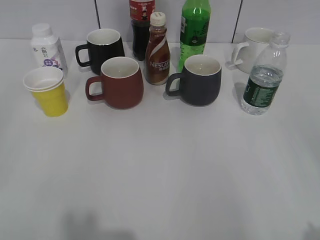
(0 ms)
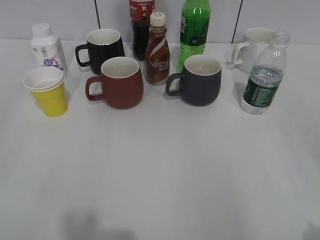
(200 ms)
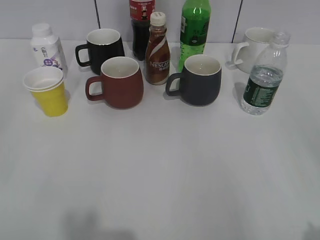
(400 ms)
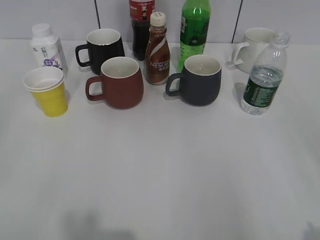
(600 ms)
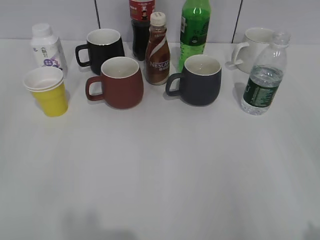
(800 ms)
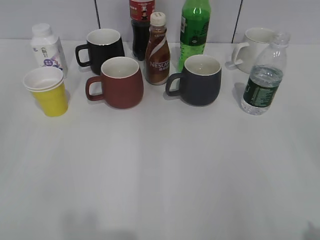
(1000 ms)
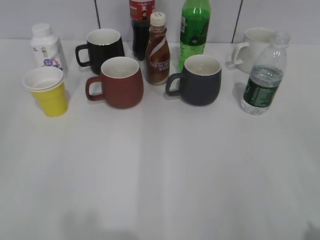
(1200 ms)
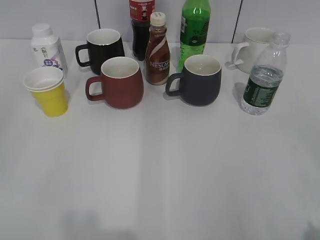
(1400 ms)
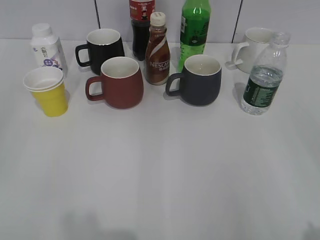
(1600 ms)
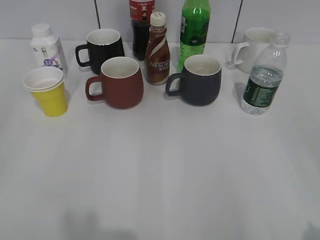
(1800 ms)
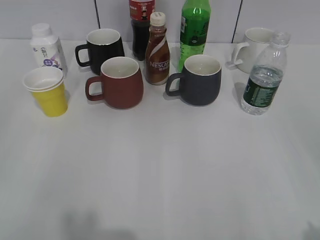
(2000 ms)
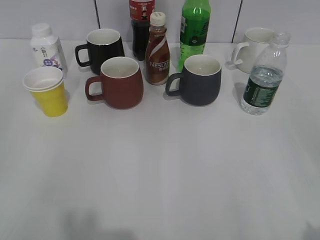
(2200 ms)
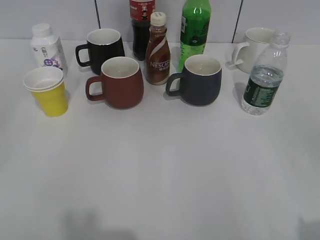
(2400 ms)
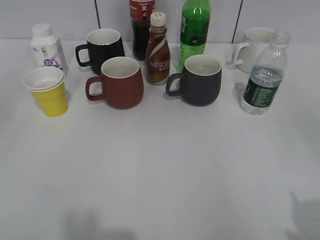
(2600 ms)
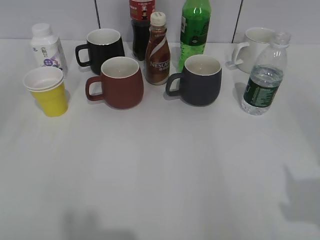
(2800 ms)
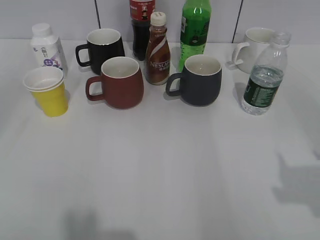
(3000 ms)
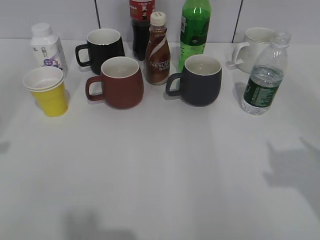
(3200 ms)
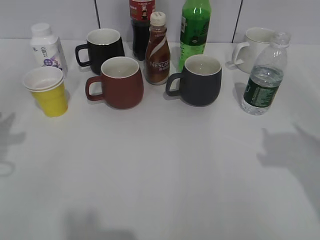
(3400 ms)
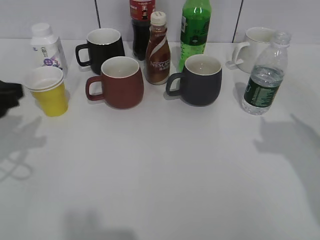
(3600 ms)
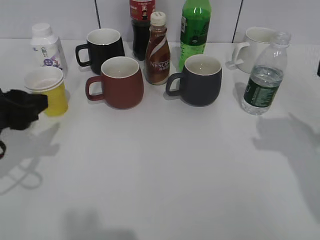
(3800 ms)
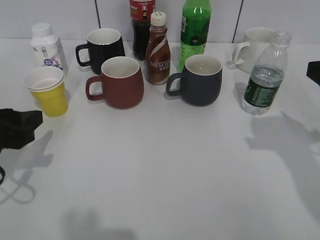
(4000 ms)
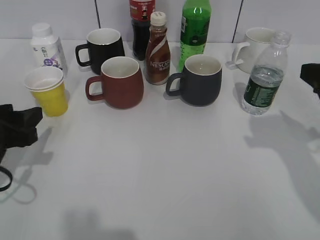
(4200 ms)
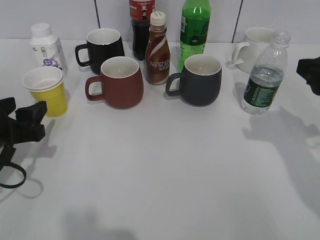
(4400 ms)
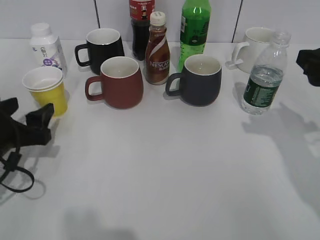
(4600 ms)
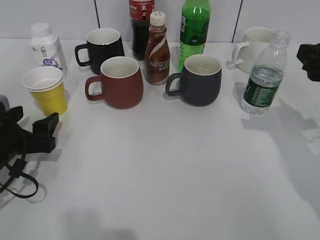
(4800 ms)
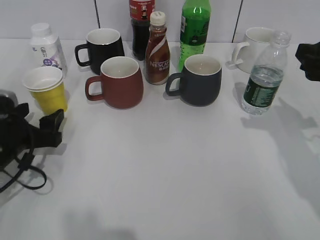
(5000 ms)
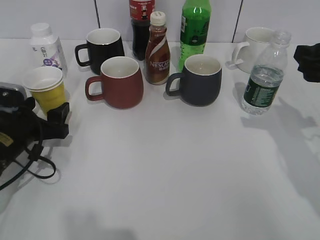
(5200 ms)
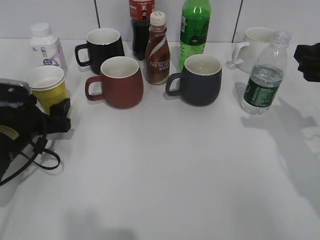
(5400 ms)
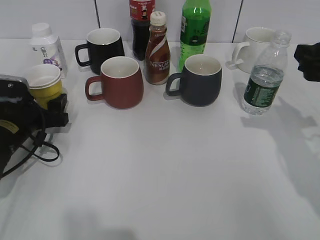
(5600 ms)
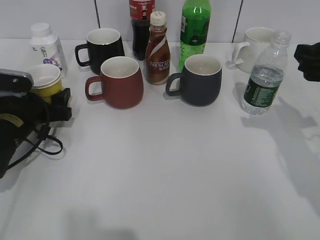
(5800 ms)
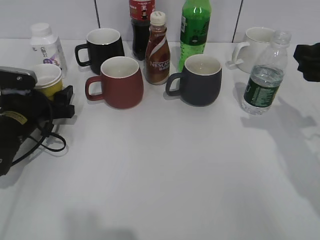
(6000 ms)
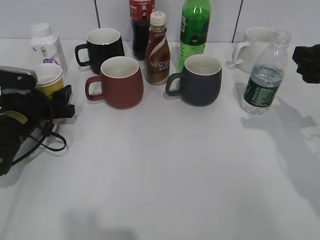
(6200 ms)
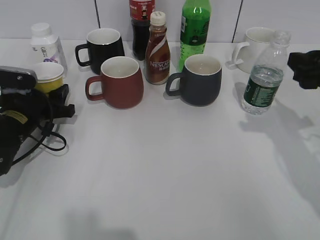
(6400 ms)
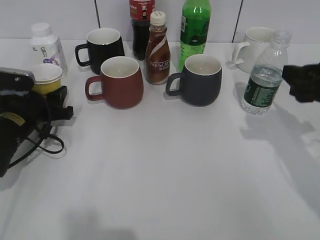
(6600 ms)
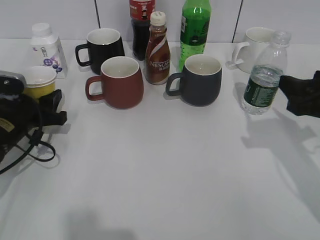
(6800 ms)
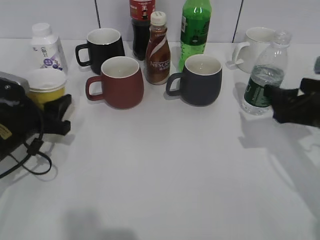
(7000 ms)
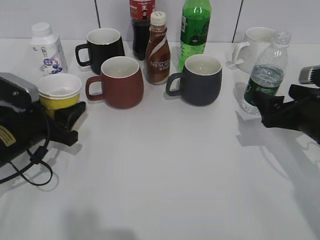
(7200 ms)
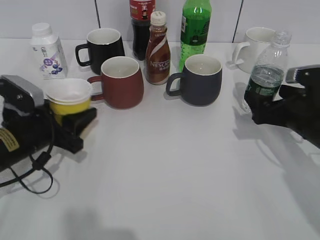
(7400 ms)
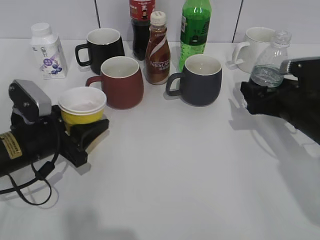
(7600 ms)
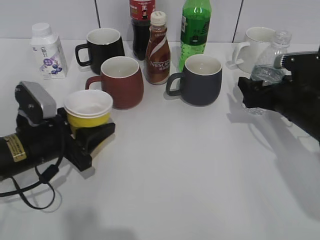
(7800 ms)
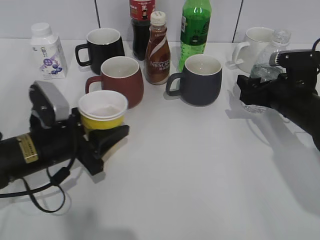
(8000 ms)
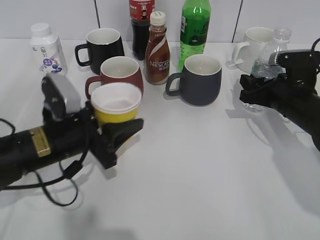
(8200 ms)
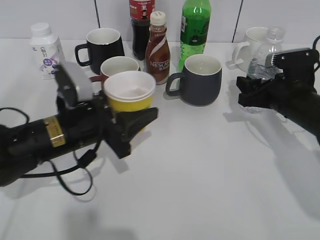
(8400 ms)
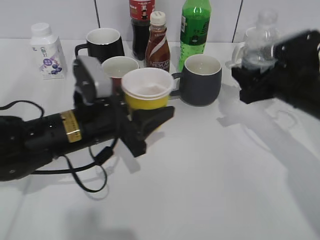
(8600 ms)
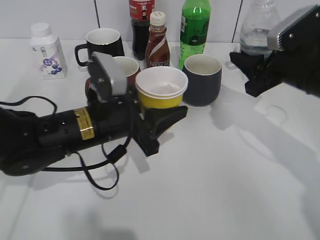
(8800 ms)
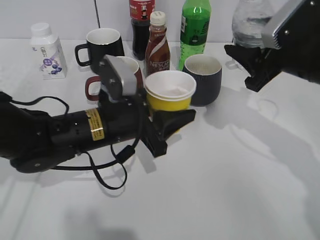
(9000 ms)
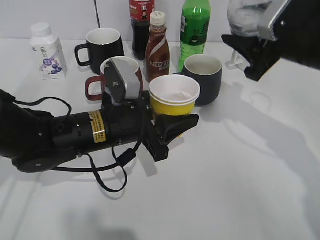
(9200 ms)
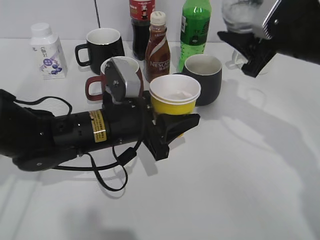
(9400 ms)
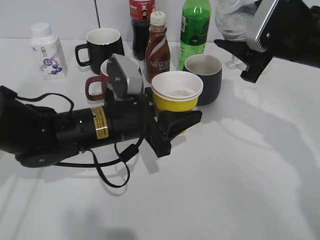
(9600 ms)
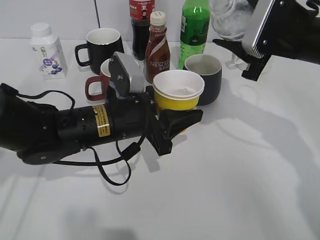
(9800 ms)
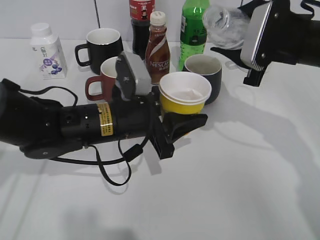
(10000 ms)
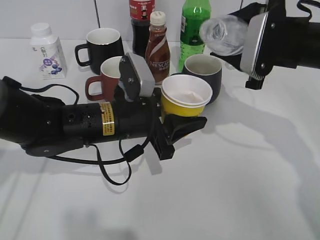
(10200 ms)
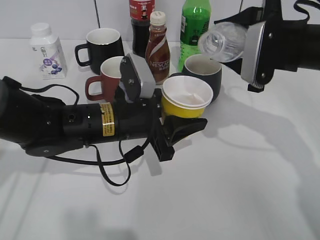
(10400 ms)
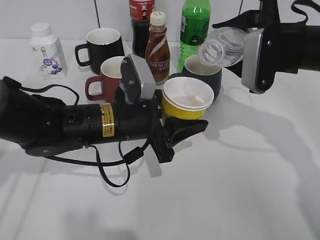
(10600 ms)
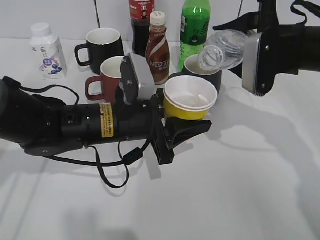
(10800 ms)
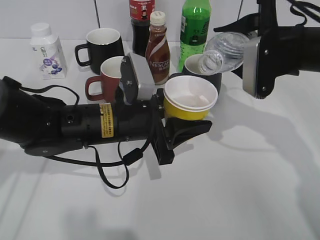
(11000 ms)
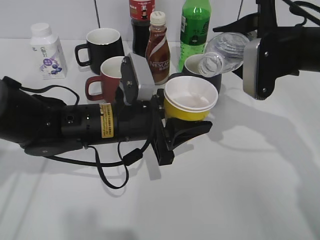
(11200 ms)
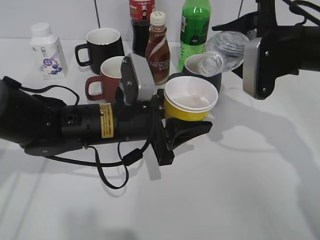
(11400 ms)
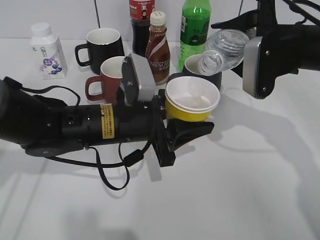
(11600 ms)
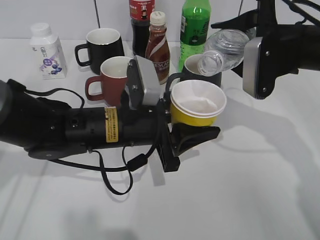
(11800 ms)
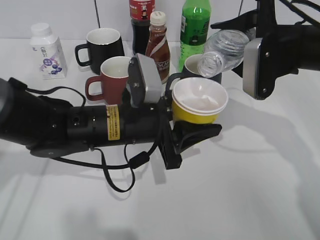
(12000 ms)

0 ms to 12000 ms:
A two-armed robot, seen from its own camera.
Step, 2200 ms to 6000 ms: Grasp the yellow paper cup with left gripper.
Step, 6200 ms to 8000 ms: Grasp the bottle with water with right gripper.
1600 ms to 3000 ms: Both grippers move forward, about 10 cm.
3000 ms to 4400 ms: The right gripper shifts some 15 cm forward and downward. The left gripper shifts about 20 cm downward and forward, and opens its fingers.
4400 ms to 6000 ms: The left gripper heads forward and downward, covering some 10 cm.
6000 ms to 7600 ms: The left gripper is displaced backward by about 5 cm, and closes its fingers, while the right gripper is displaced downward by some 10 cm, and opens.
7600 ms to 9000 ms: The left gripper is displaced to the right by some 15 cm; the right gripper shifts about 10 cm upward, and closes its fingers.
10400 ms to 12000 ms: The grippers move only a little.

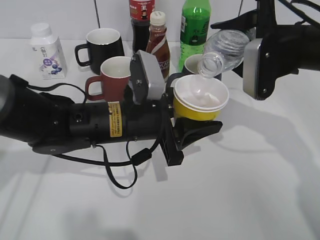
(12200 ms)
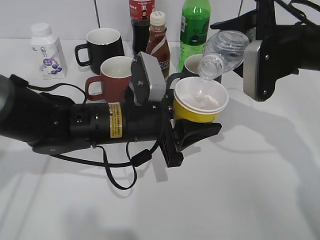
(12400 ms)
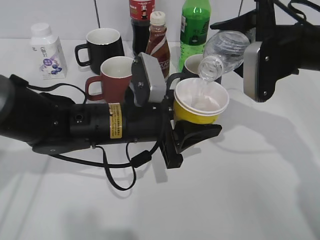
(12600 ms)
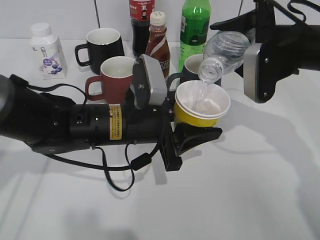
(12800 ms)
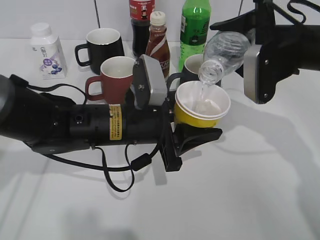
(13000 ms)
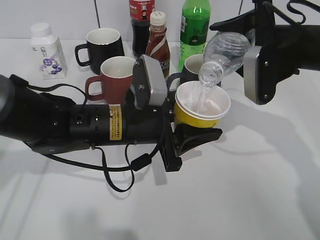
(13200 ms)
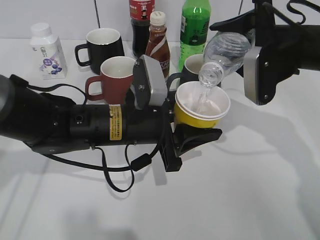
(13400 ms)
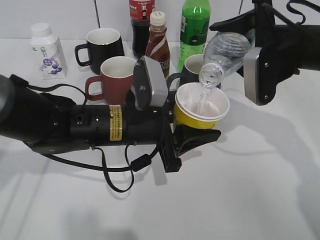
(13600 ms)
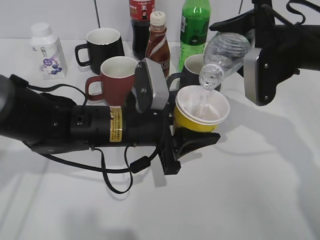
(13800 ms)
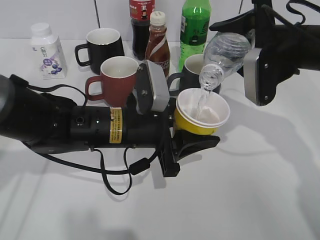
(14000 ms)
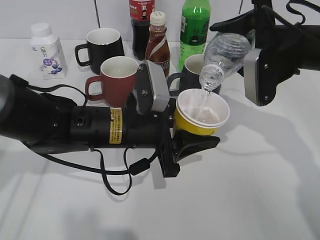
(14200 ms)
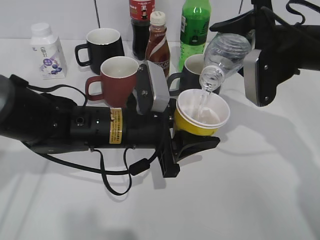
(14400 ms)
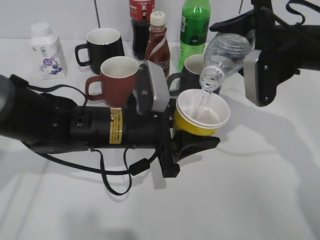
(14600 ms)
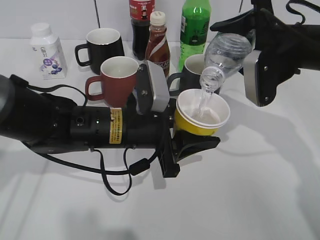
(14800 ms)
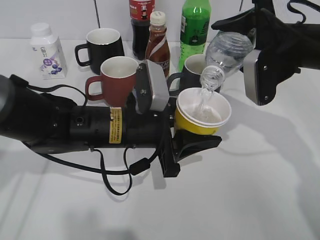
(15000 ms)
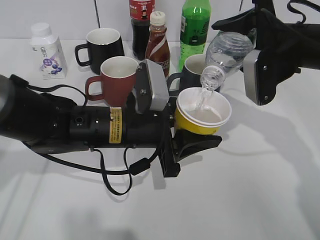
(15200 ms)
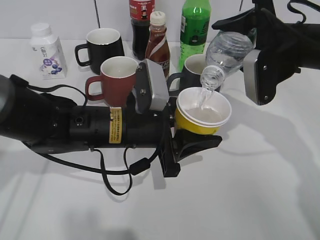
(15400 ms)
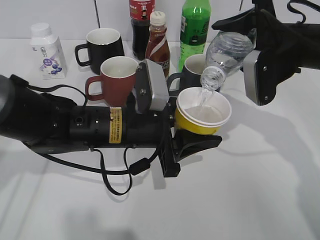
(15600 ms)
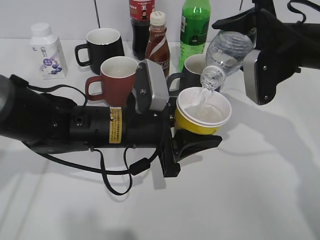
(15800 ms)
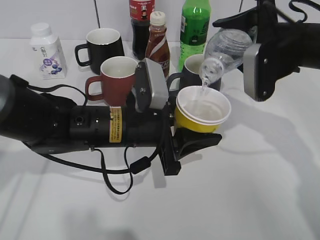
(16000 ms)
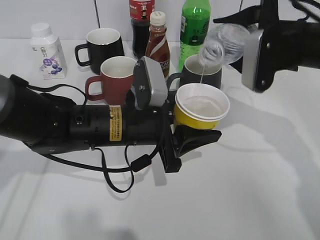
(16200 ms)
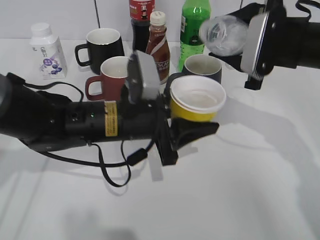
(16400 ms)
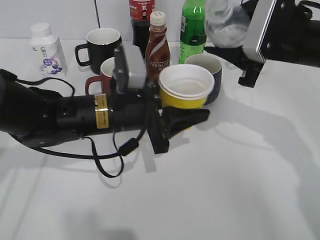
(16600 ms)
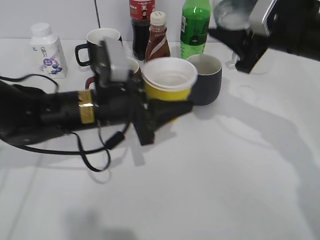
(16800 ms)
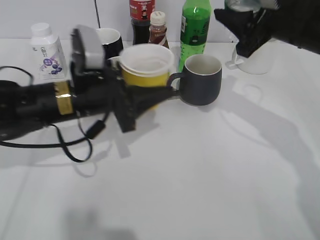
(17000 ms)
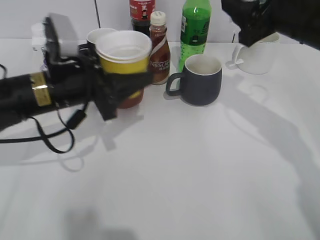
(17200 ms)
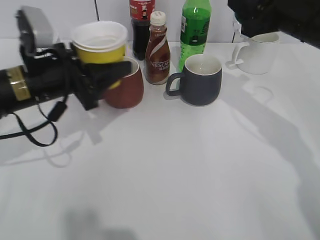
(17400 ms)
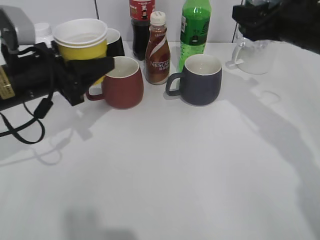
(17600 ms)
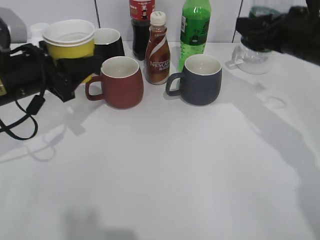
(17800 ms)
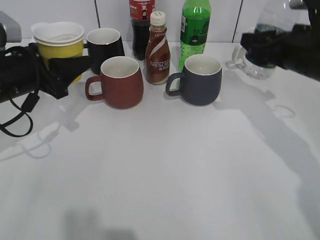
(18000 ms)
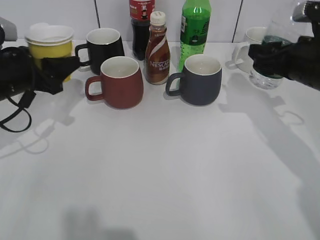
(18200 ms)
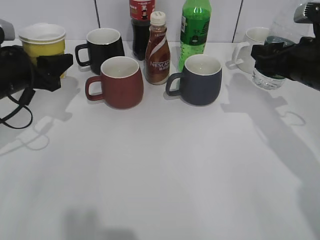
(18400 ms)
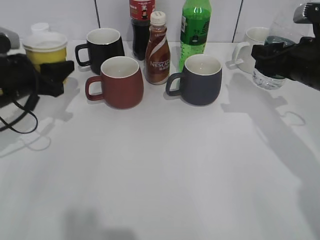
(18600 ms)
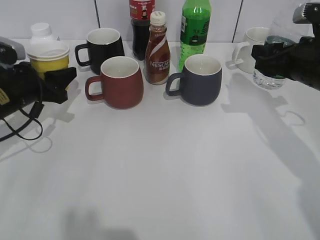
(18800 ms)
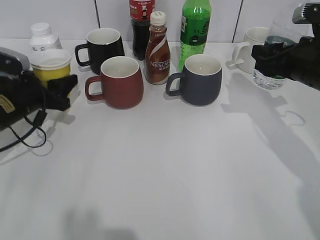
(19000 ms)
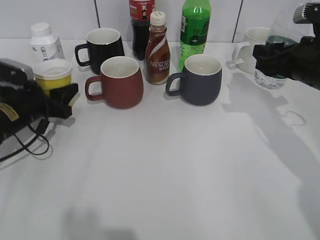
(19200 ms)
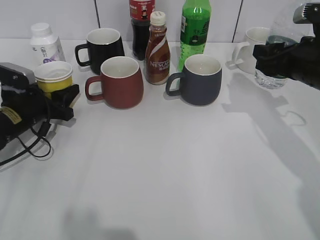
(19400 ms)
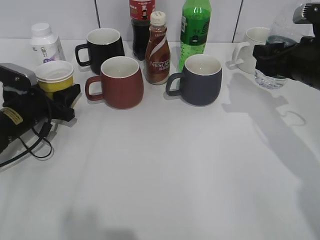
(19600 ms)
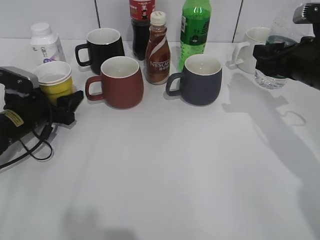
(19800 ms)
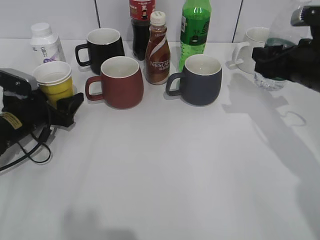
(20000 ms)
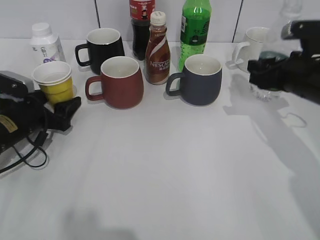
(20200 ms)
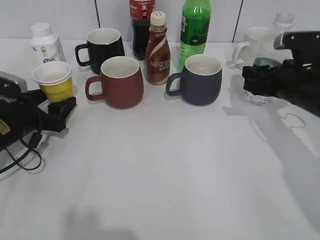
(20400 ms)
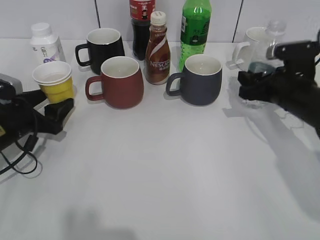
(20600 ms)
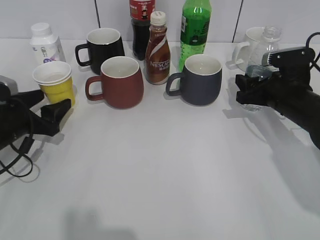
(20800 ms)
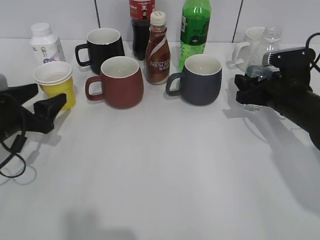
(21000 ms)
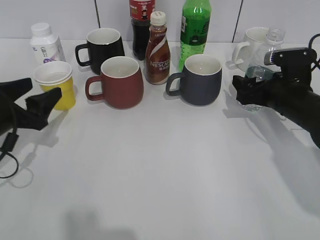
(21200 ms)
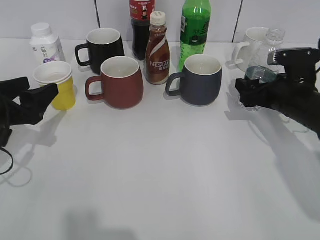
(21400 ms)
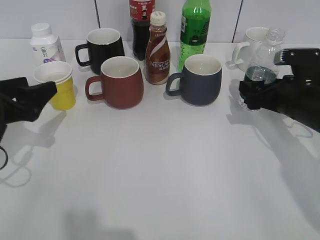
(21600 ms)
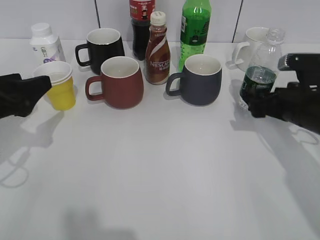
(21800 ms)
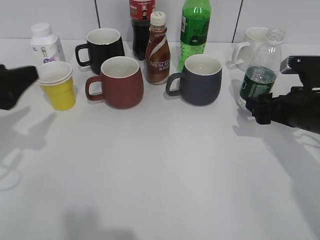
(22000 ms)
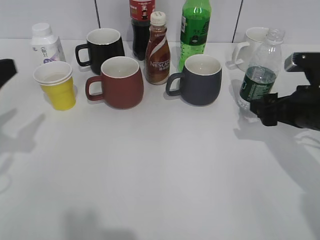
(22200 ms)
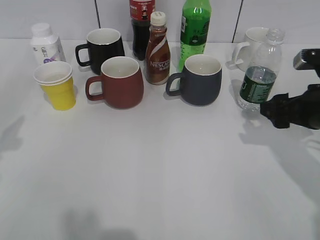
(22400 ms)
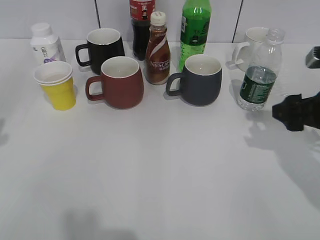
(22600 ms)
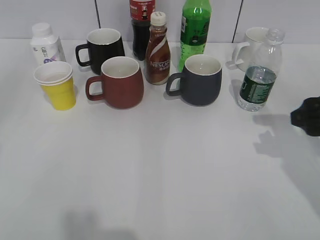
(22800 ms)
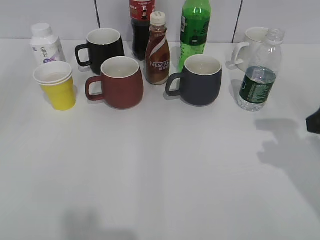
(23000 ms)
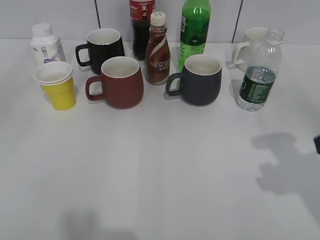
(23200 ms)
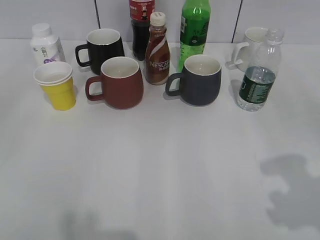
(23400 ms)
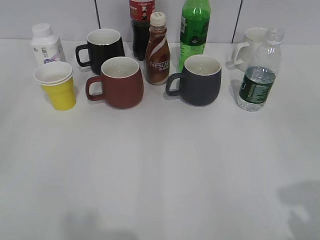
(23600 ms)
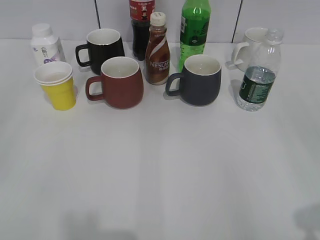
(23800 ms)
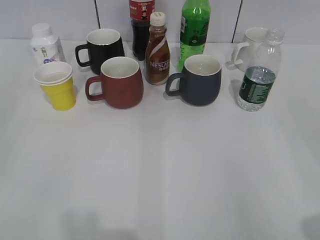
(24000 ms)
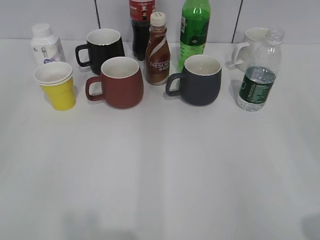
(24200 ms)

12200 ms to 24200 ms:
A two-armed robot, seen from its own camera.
Step, 12200 ms to 16800 ms: Pour the water from bottle to cup with right gripper.
Step, 17000 ms to 20000 ms: Place the yellow paper cup on the table with left gripper.
Step, 20200 ms to 21200 ms: Place the water bottle on the table with right gripper.
12200 ms to 13800 ms: The grippers make only small movements.
13800 ms to 15200 ms: The two grippers keep their place.
16600 ms to 18200 ms: The right gripper heads to the right, covering roughly 5 cm. The left gripper shifts roughly 20 cm to the left.
18200 ms to 19800 ms: The left gripper travels downward by roughly 10 cm, and opens its fingers.
19800 ms to 21200 ms: The right gripper travels downward by approximately 10 cm, and opens up. Meanwhile the left gripper travels backward and upward by some 10 cm.
21200 ms to 22600 ms: The right gripper travels backward and upward by about 10 cm. The left gripper travels upward and backward by approximately 15 cm.
22600 ms to 24200 ms: The right gripper moves backward, roughly 25 cm.
